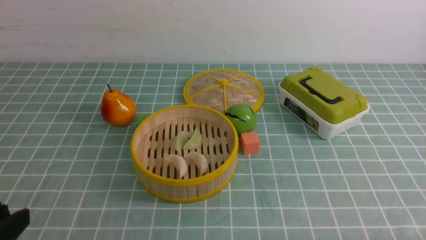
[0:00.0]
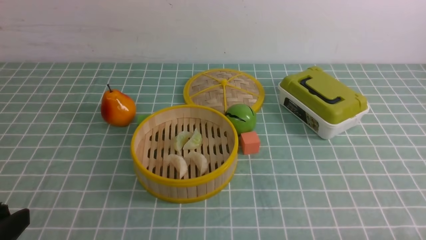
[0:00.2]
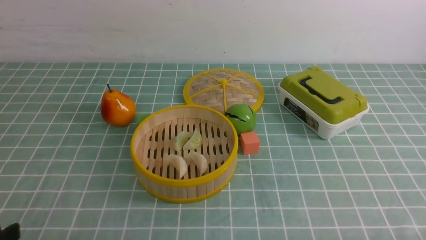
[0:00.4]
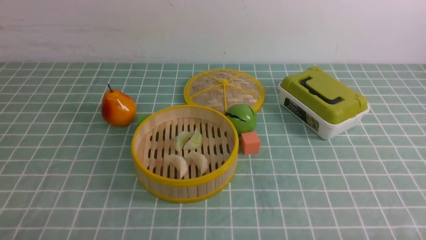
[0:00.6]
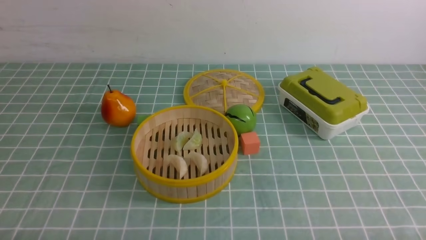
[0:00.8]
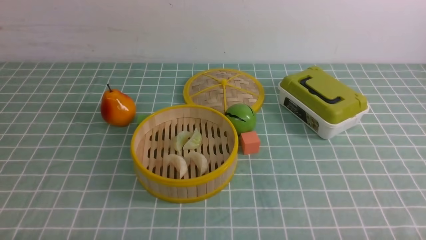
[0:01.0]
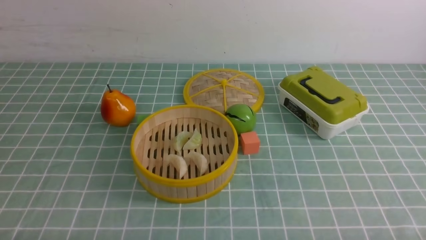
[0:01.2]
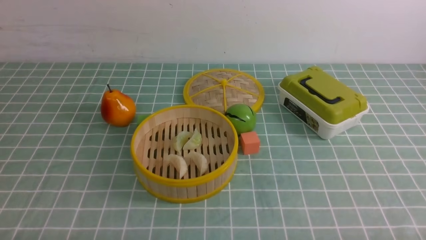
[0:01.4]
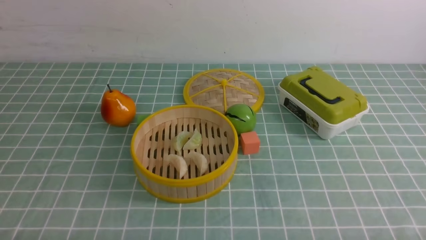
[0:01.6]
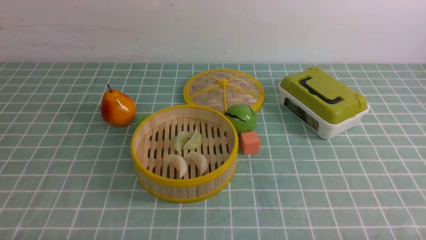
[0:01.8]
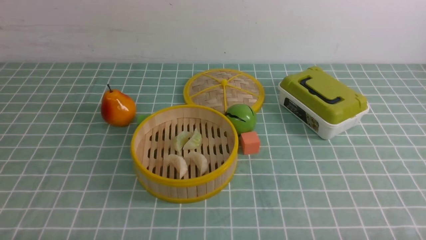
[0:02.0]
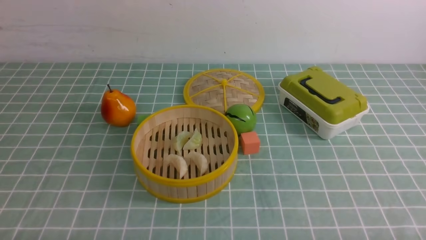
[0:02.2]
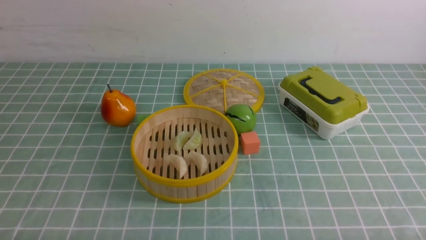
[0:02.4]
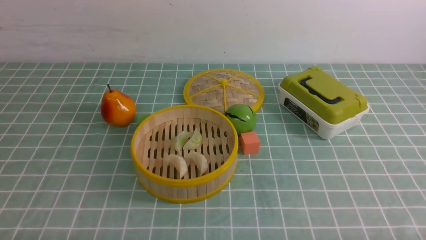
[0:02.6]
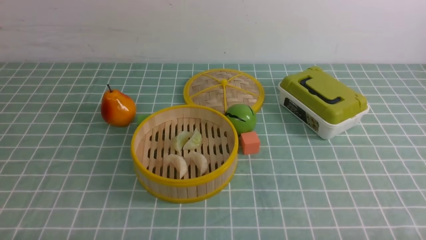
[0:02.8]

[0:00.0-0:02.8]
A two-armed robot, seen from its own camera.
Task of the whole recording: put the dumplings into the steamer on the table with the blue tablecloth.
0:00.0 to 0:01.4: The left gripper heads downward, covering some 10 cm, and closes up.
0:01.4 to 0:02.8: Both grippers stay about where they are.
